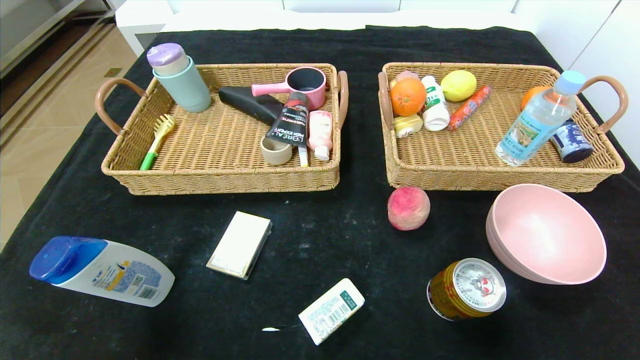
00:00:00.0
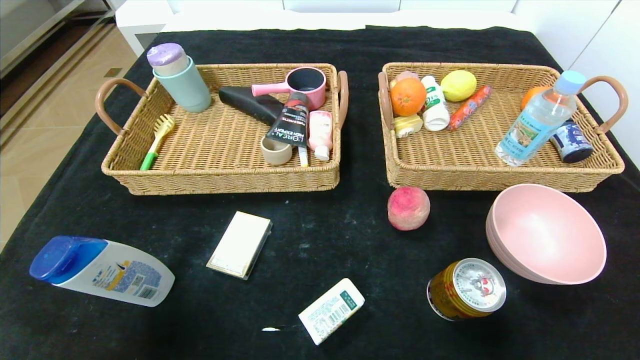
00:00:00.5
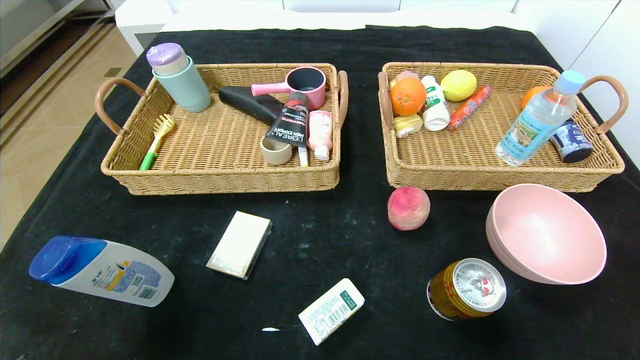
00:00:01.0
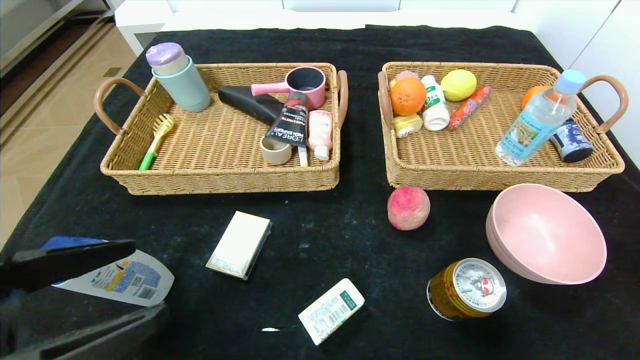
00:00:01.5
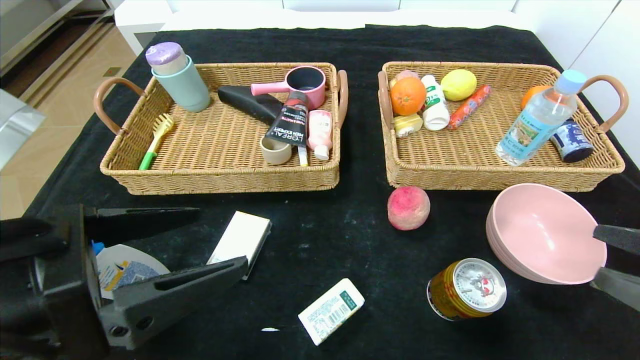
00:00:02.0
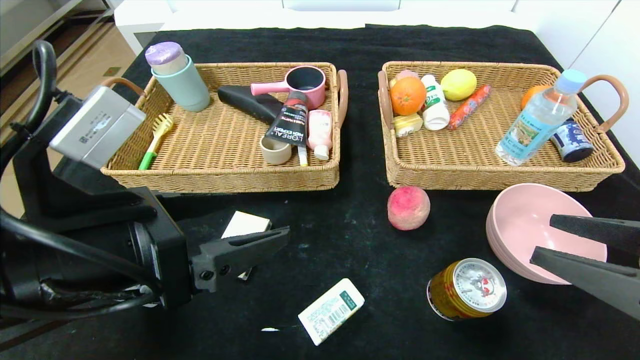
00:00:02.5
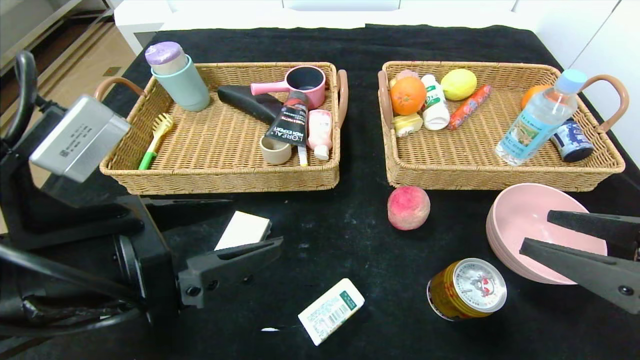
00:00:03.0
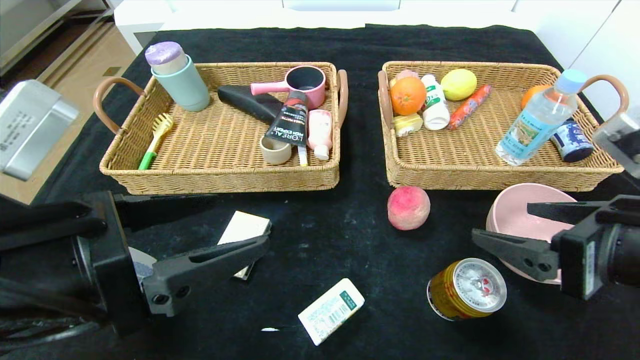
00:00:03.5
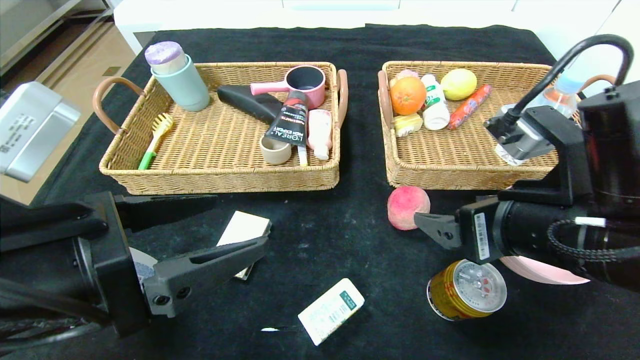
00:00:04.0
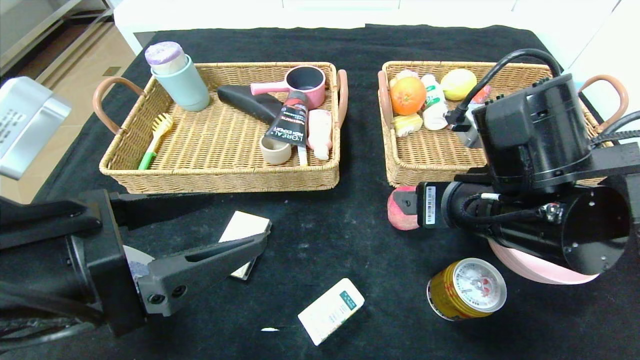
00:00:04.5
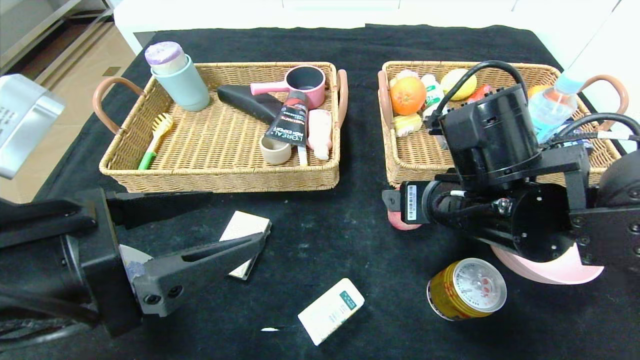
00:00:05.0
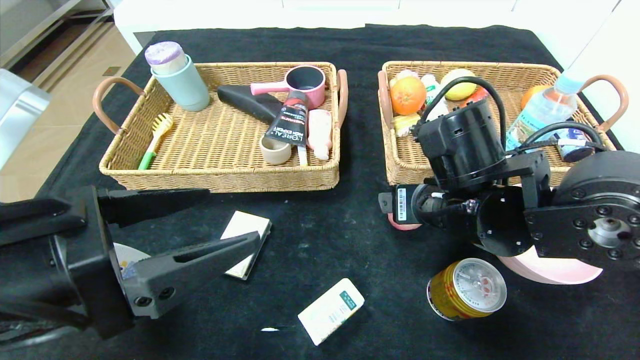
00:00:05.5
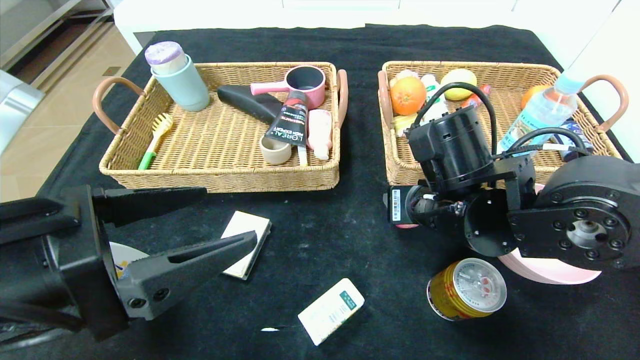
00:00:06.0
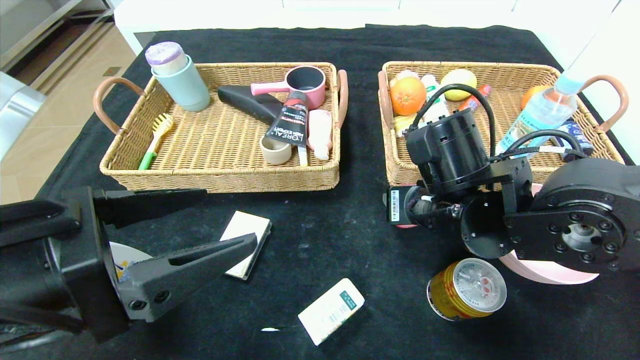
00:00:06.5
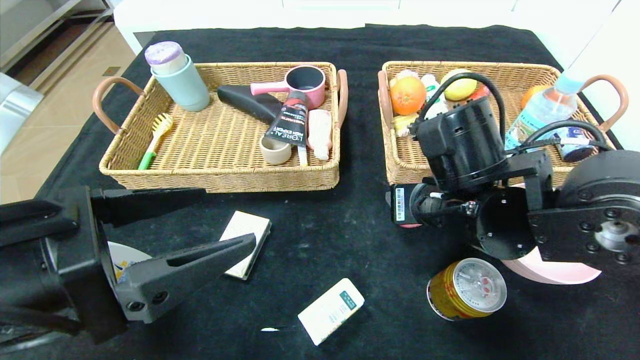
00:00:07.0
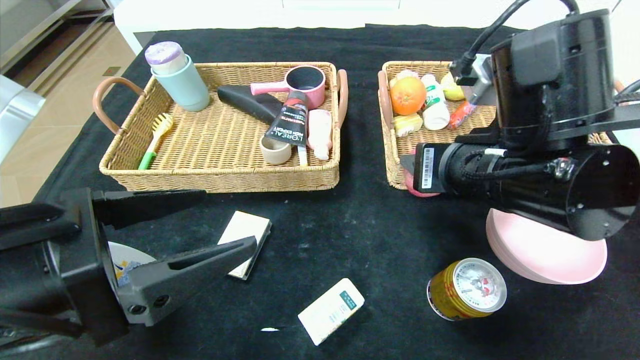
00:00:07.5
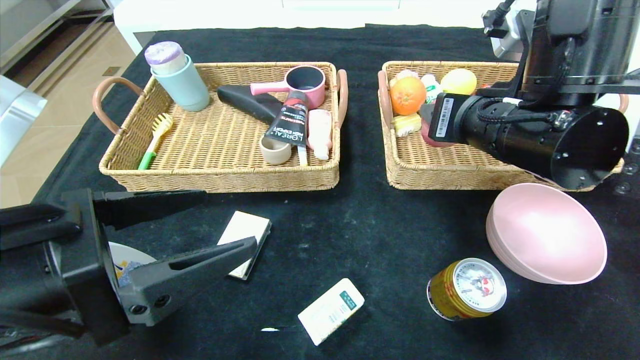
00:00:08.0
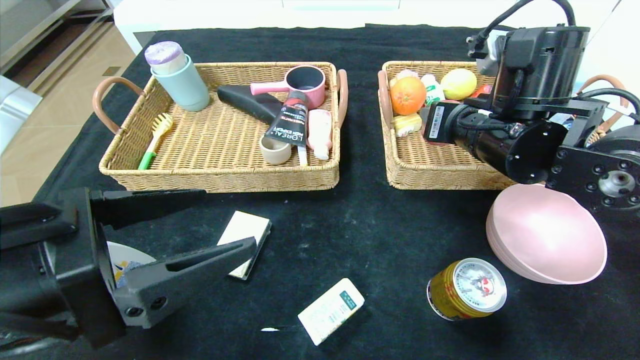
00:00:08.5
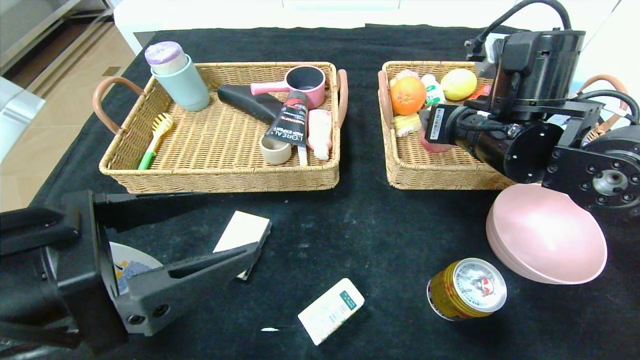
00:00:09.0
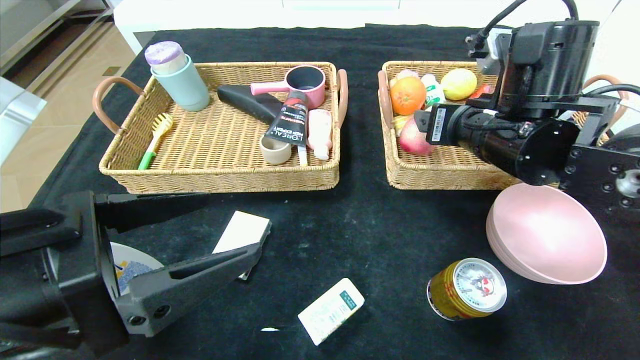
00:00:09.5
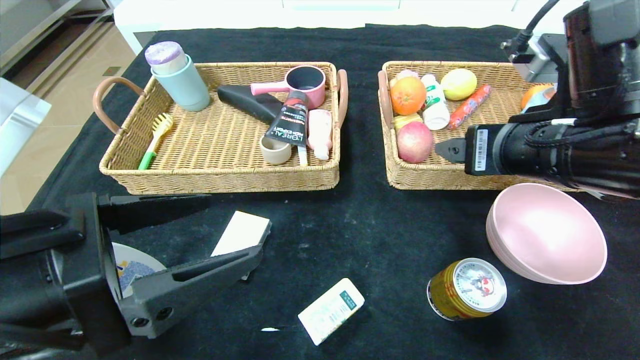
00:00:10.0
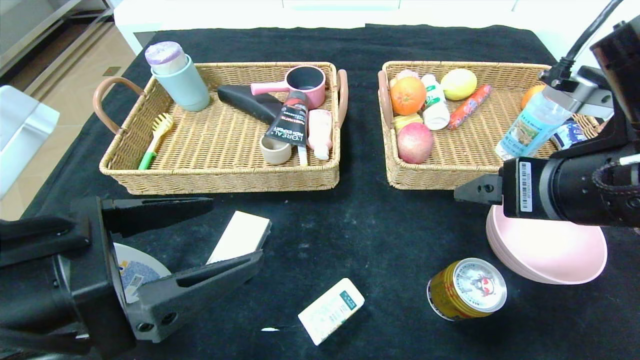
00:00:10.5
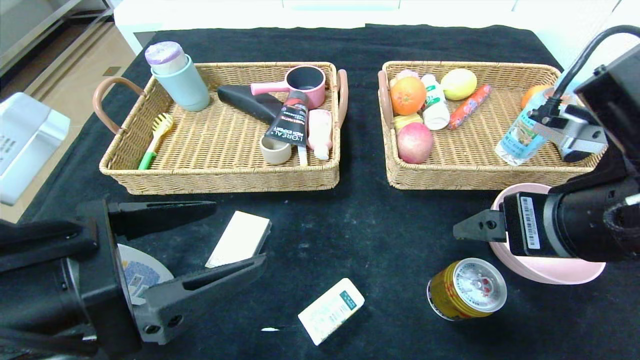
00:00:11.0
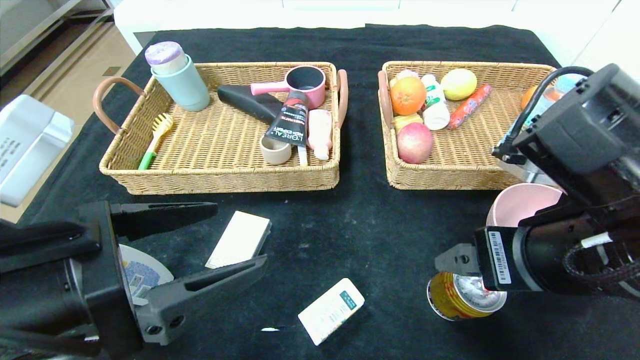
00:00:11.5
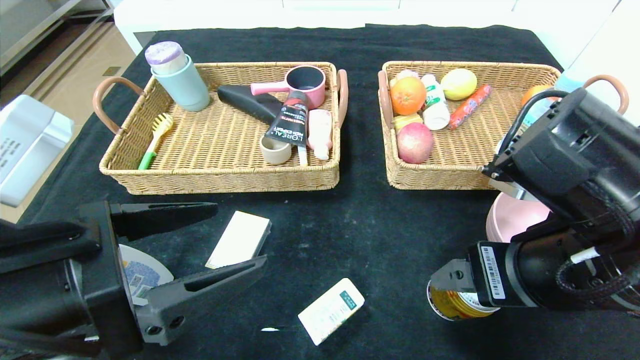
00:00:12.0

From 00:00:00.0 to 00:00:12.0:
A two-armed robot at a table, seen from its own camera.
Step, from 00:00:00.0 to 00:00:10.5: Pick up the peach and put it in the right basket.
From 00:00:00.0 to 00:00:02.0: The left gripper shifts roughly 25 cm upward, forward and to the right; the right gripper is displaced upward and forward by approximately 20 cm.
From 00:00:02.0 to 00:00:04.0: The right gripper moves to the left and forward, approximately 15 cm.
From 00:00:04.0 to 00:00:06.0: The right gripper is displaced forward and to the left by some 10 cm, and closes up.
From 00:00:06.0 to 00:00:08.0: The right gripper goes roughly 10 cm upward.
From 00:00:08.0 to 00:00:10.0: The right gripper opens.
From 00:00:10.0 to 00:00:12.0: The right gripper goes approximately 5 cm backward.

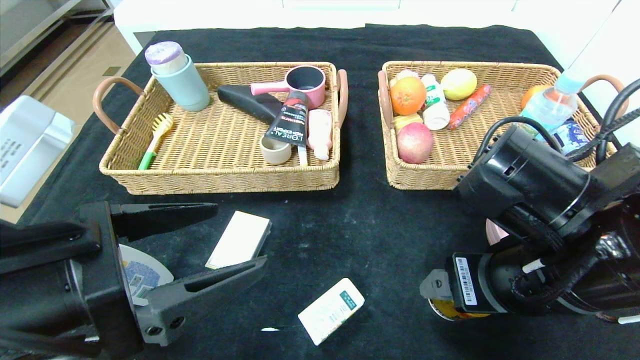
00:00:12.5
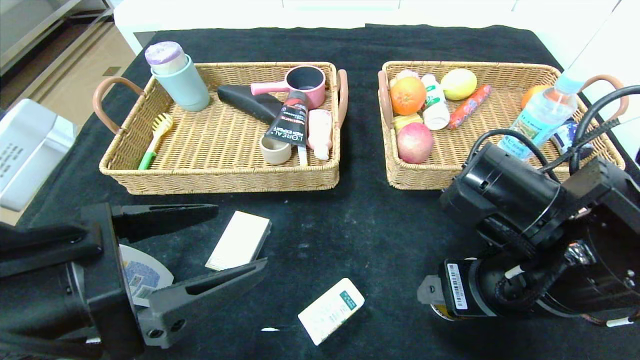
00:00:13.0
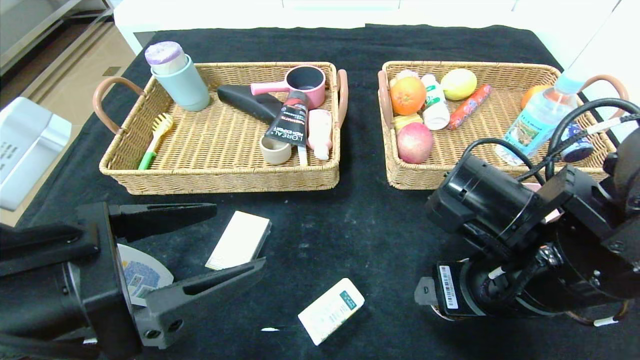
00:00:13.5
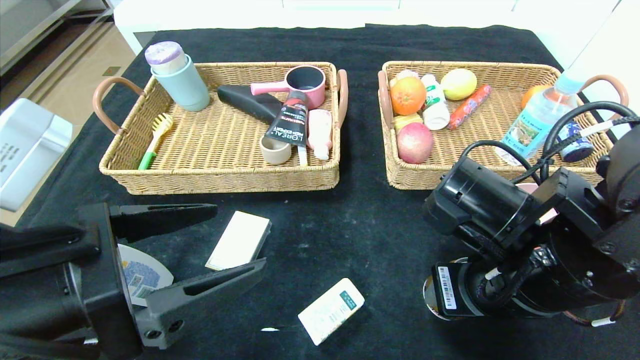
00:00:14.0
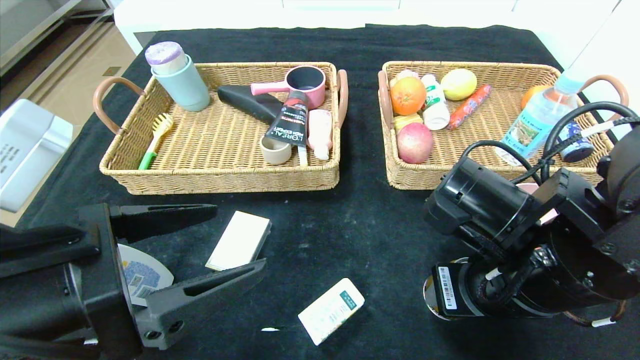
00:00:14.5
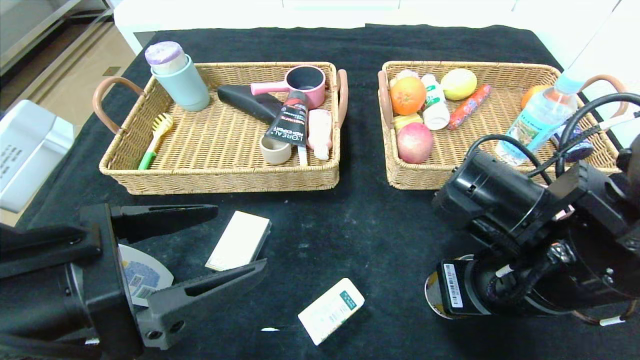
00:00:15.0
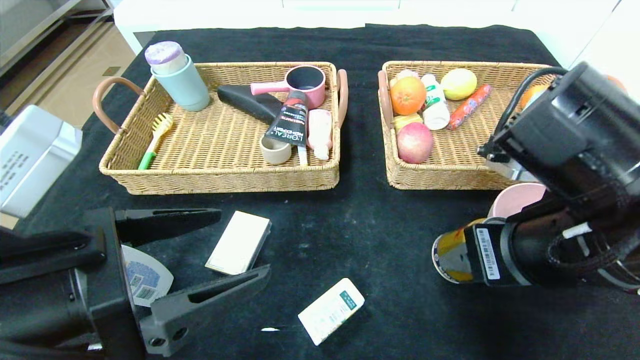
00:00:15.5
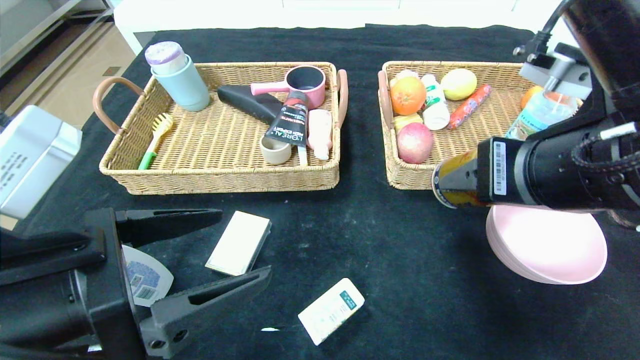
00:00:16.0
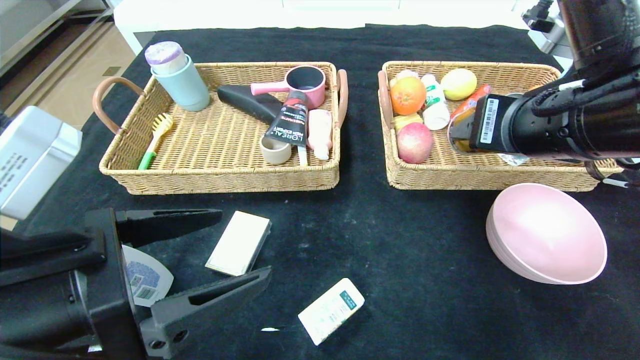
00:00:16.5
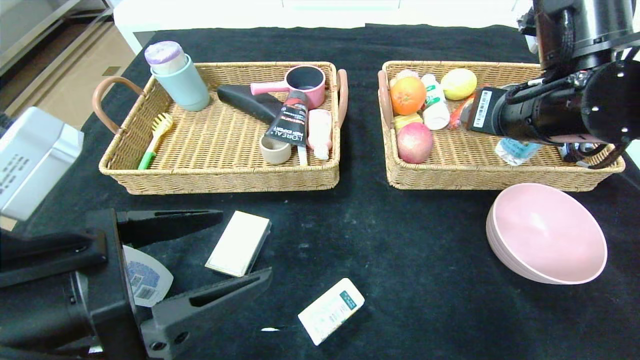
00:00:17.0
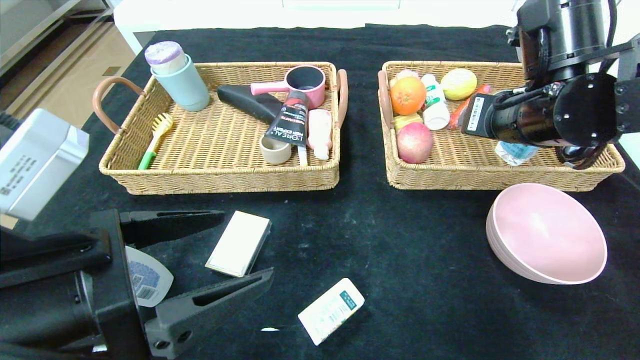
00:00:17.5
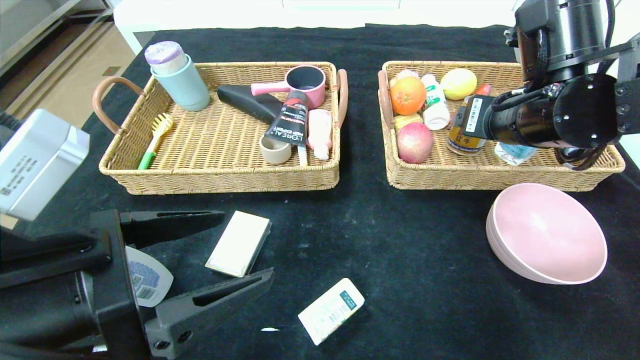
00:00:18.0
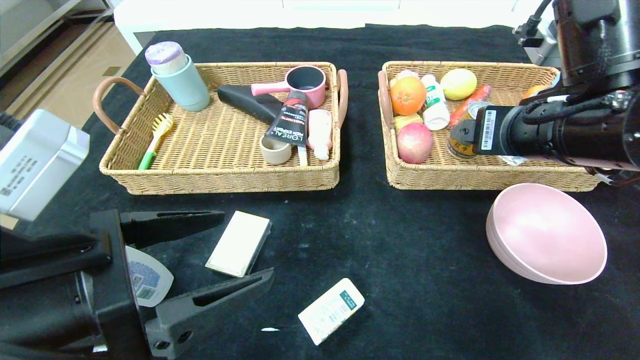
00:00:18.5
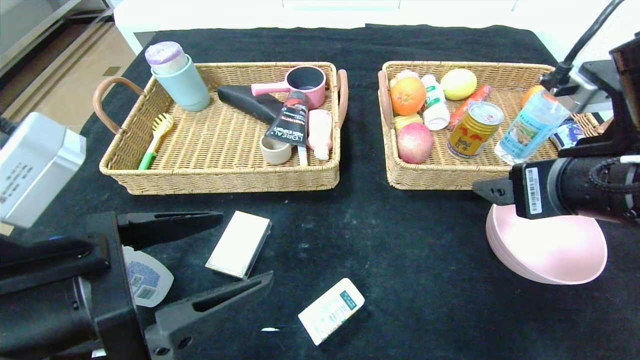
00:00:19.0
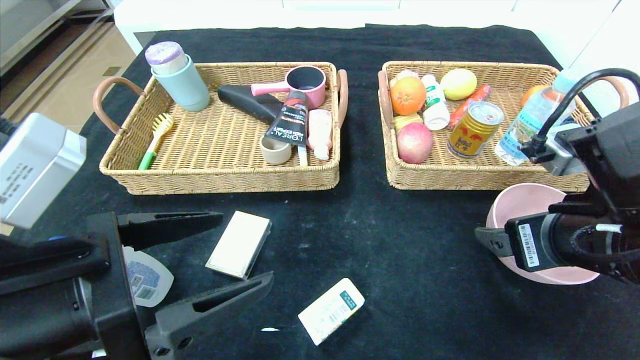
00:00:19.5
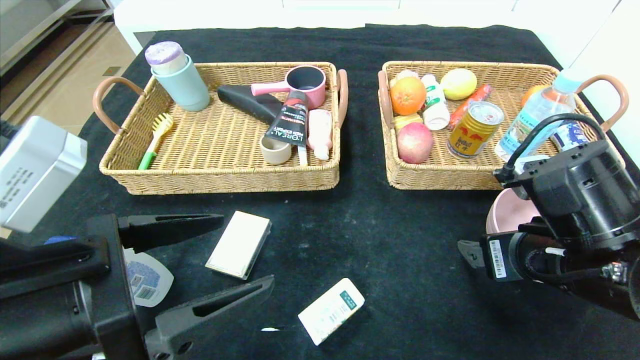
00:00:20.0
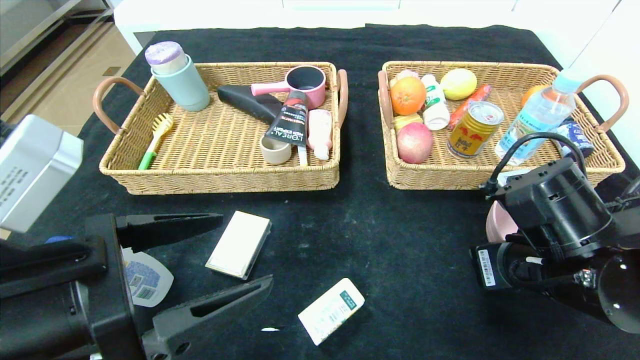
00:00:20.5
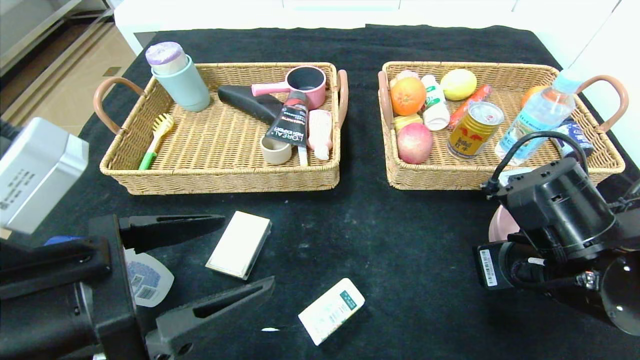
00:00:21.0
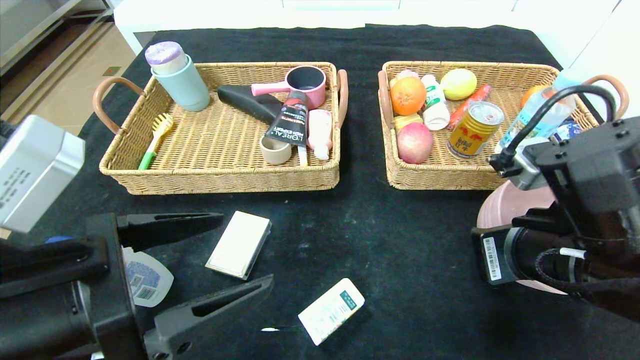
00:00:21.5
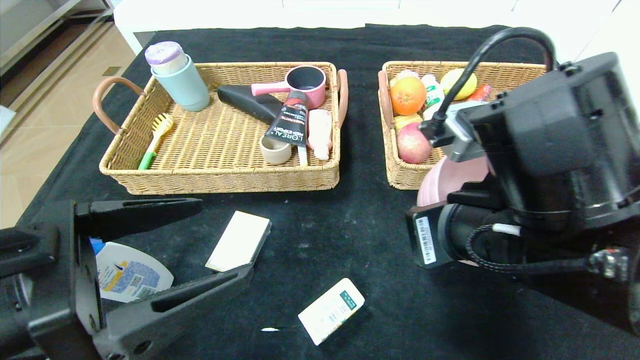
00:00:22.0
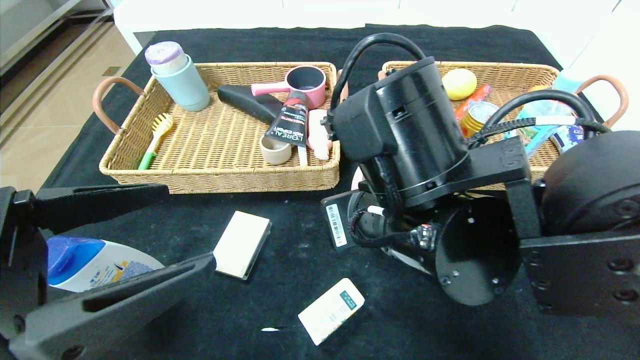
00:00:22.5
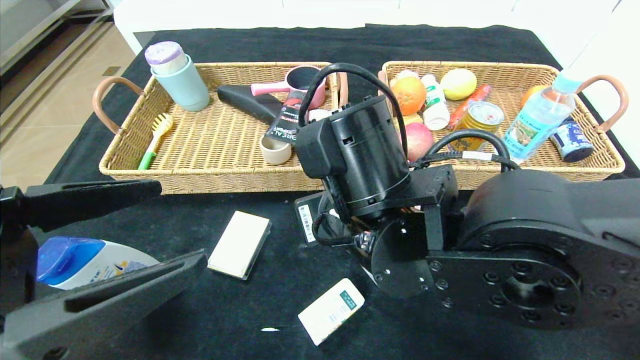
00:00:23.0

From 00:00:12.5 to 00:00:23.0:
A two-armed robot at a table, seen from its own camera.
Step, from 00:00:12.5 to 00:00:19.0: Pick up the red bull and put it in the right basket.
From 00:00:12.5 to 00:00:14.5: The grippers make only small movements.
From 00:00:14.5 to 00:00:16.5: The right gripper is displaced upward by some 10 cm.
From 00:00:16.5 to 00:00:19.0: The right gripper shifts by roughly 5 cm.
From 00:00:19.0 to 00:00:21.0: The right gripper heads downward, covering roughly 10 cm, and closes.
From 00:00:21.0 to 00:00:23.0: The left gripper shifts by about 5 cm. Meanwhile the right gripper heads to the left, covering some 20 cm.
